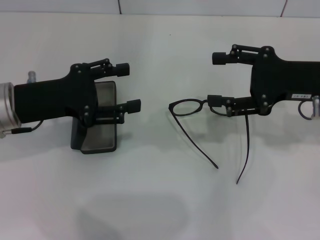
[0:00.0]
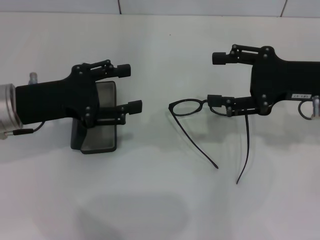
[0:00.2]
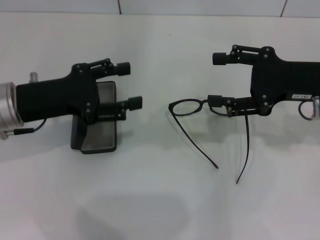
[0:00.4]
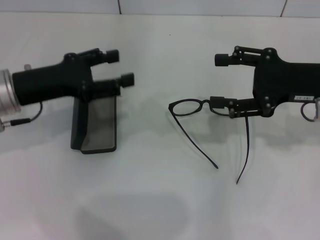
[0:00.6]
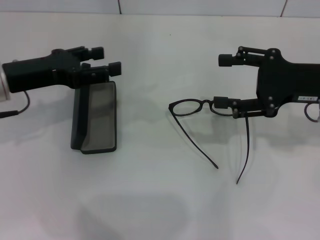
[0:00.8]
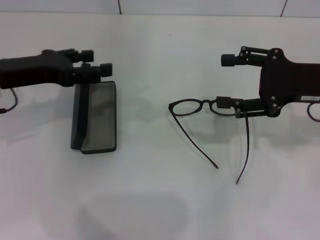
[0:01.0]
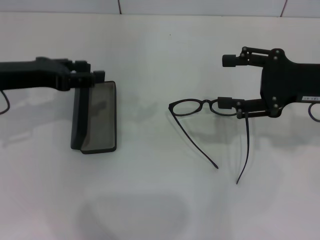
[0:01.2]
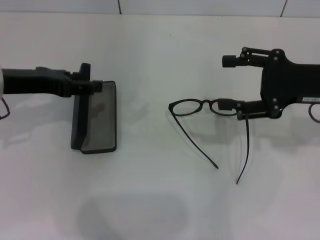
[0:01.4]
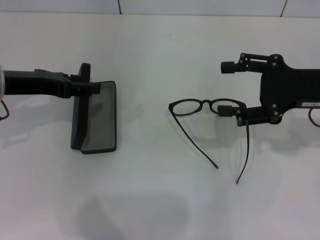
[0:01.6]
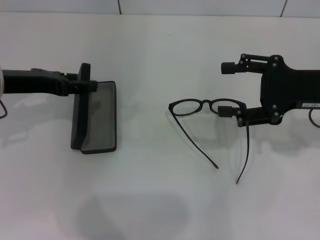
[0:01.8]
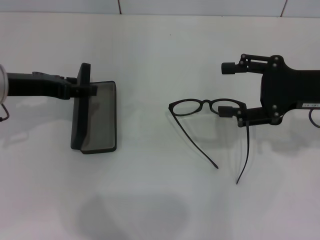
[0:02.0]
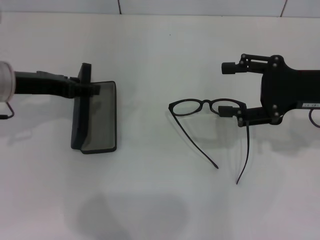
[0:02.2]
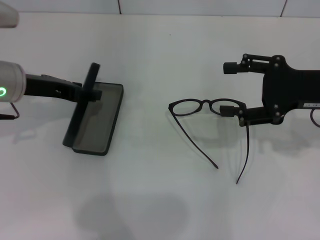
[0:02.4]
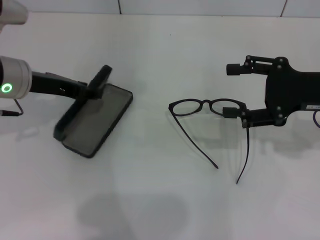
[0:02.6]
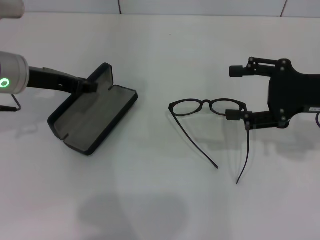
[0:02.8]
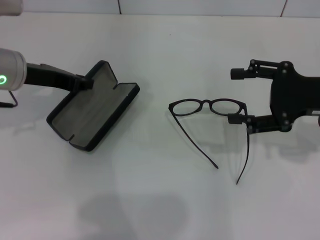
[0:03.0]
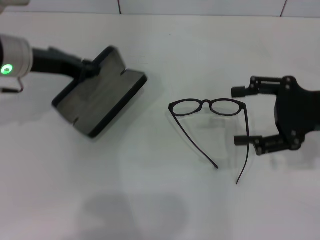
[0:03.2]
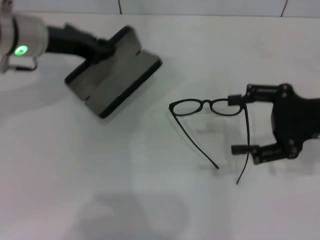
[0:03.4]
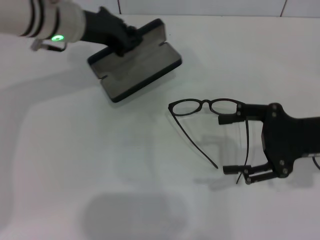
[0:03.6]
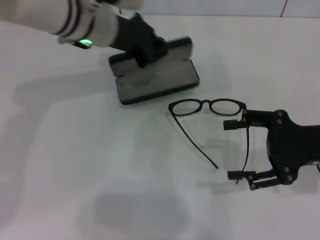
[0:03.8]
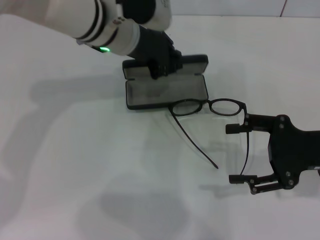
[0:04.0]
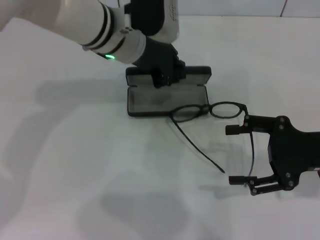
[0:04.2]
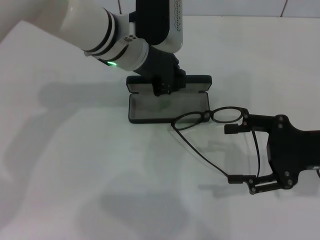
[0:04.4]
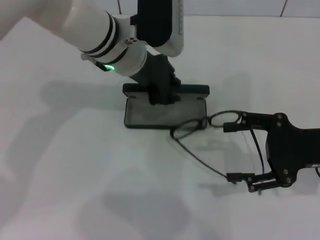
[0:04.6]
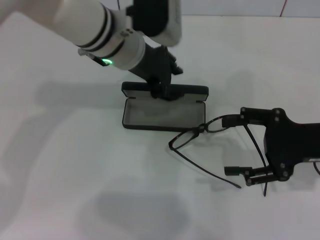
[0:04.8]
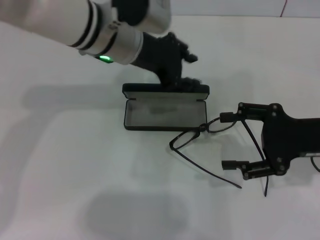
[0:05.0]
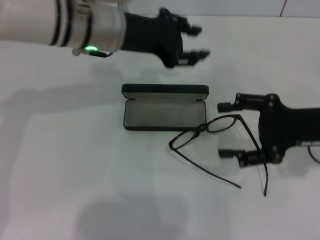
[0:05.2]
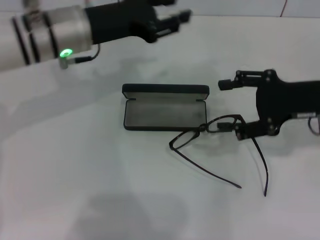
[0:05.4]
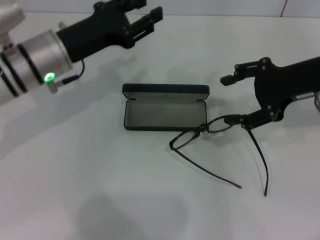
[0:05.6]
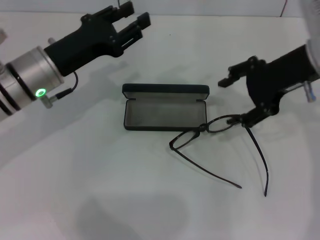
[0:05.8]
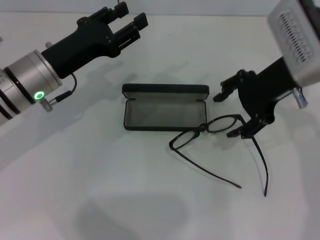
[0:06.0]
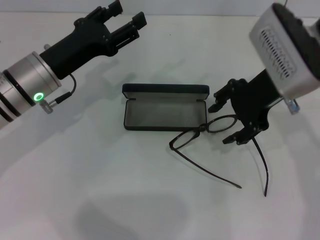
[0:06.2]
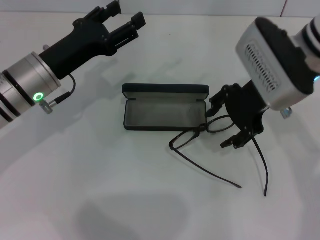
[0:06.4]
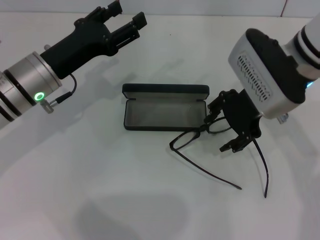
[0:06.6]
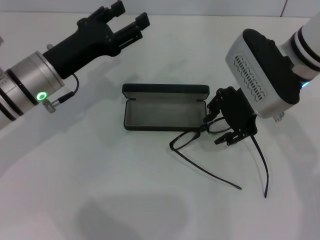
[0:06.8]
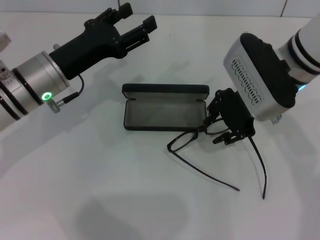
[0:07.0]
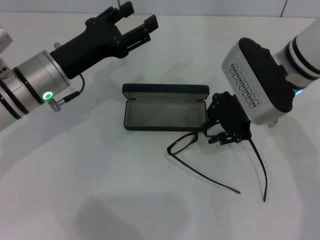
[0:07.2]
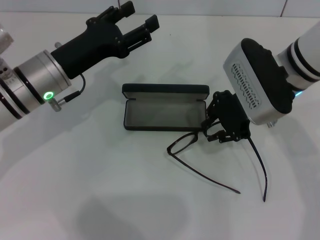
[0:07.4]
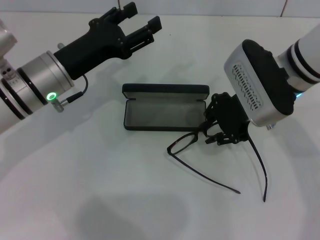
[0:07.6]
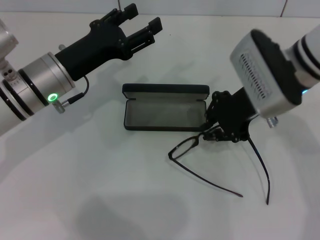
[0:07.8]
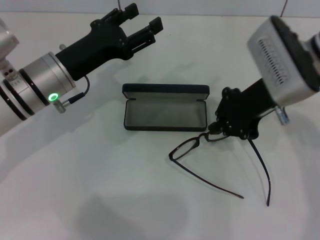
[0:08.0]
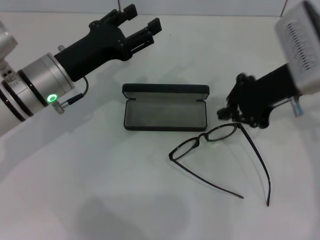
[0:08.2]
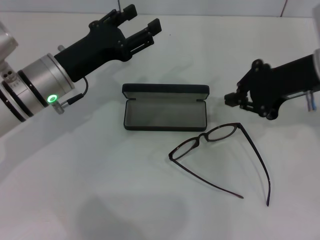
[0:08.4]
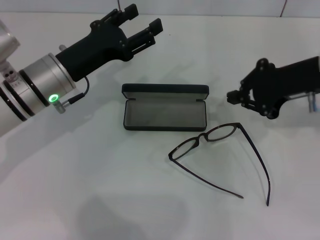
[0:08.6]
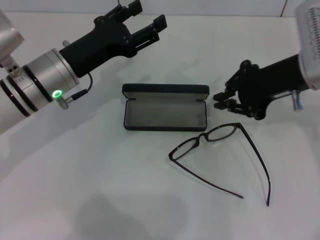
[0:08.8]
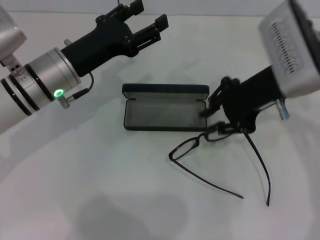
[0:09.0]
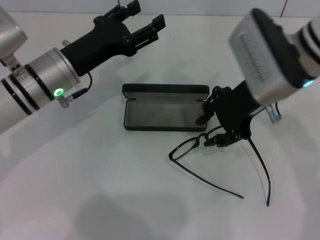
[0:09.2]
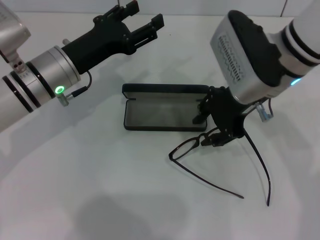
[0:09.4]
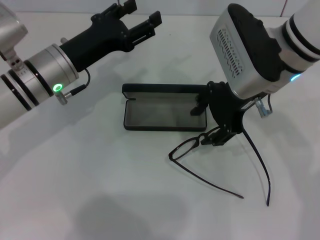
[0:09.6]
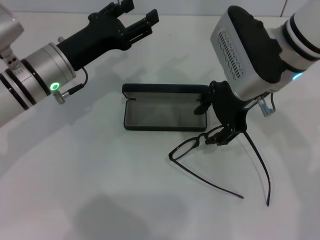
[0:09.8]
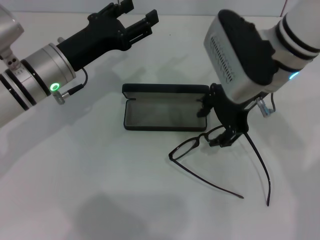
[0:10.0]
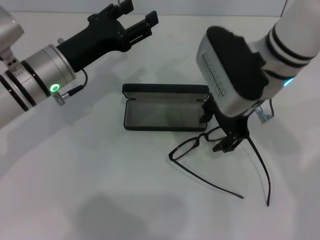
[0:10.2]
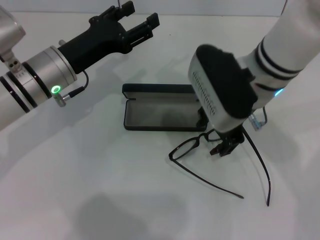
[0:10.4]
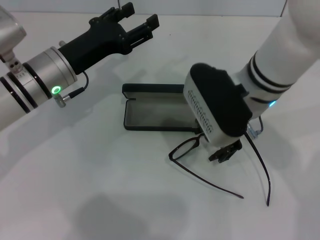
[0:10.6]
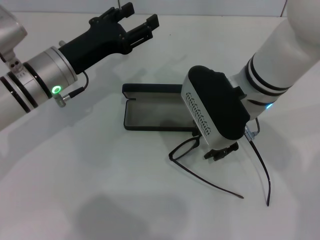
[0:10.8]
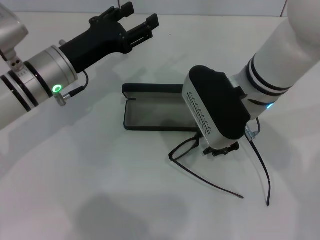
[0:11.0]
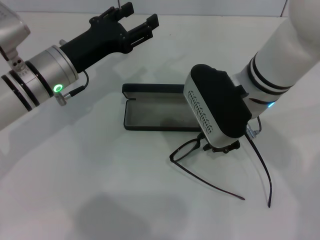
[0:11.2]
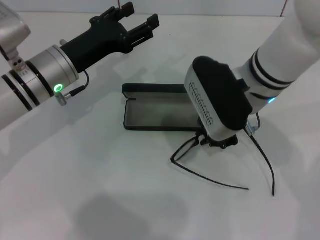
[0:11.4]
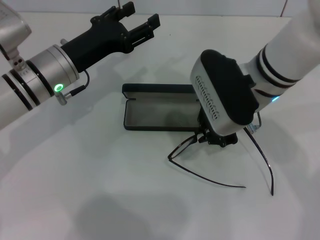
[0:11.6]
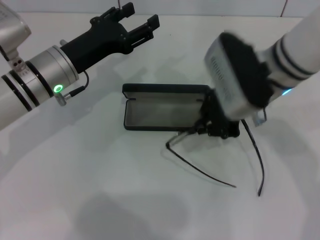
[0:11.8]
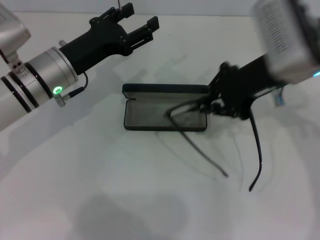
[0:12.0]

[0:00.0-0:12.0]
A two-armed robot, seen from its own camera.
Step, 0:00.0 to 0:02.4: Grab the glasses case with your left hand.
Step, 0:02.6 to 0:04.6: Place the glasses case in the center of the table with your left hand.
Step, 0:04.8 to 0:11.2: Grab the eyeglass frame with your right hand.
0:01.6 to 0:03.0: The left gripper closes up.
0:03.0 to 0:04.4: The right gripper ends up roughly 5 cm from where it was, while the left gripper moves to the right, some 15 cm.
0:04.4 to 0:06.0: The left gripper shifts about 15 cm to the left, backward and downward, and opens up. The right gripper shifts some 15 cm forward, to the left and upward.
0:06.0 to 0:07.6: The right gripper shifts by roughly 5 cm, and closes up.
0:07.6 to 0:09.0: The right gripper moves about 10 cm to the right and comes back.
0:09.0 to 0:10.4: The right gripper goes approximately 5 cm to the left, and opens its fingers.
0:10.4 to 0:12.0: The right gripper heads to the right, covering about 5 cm, and closes its fingers.

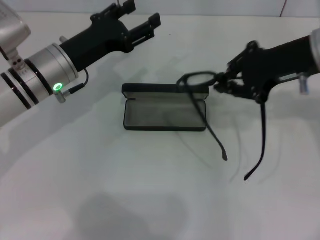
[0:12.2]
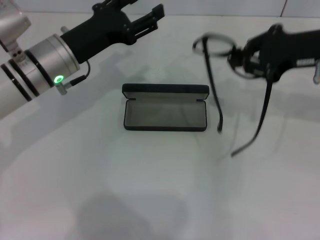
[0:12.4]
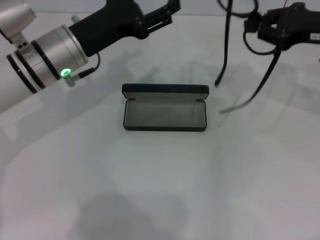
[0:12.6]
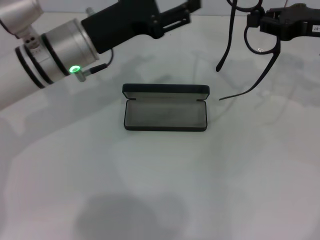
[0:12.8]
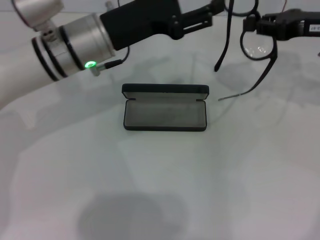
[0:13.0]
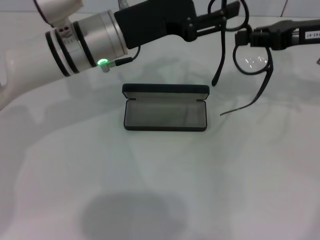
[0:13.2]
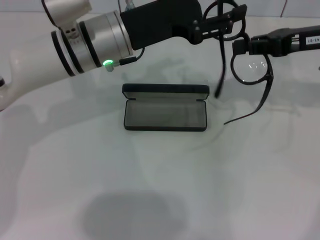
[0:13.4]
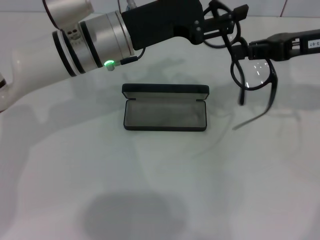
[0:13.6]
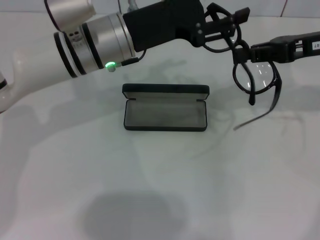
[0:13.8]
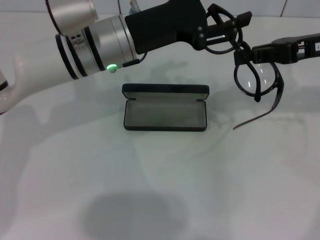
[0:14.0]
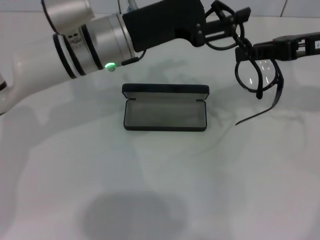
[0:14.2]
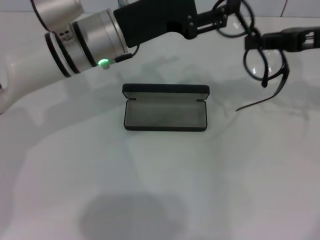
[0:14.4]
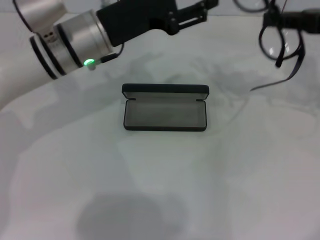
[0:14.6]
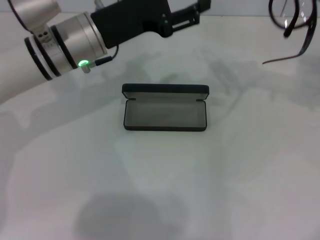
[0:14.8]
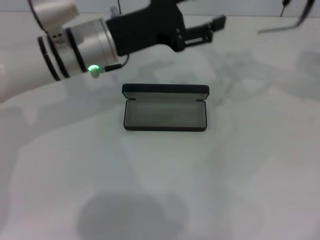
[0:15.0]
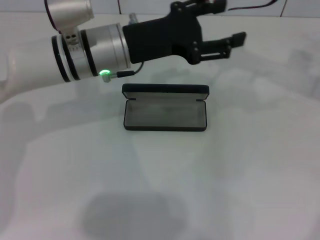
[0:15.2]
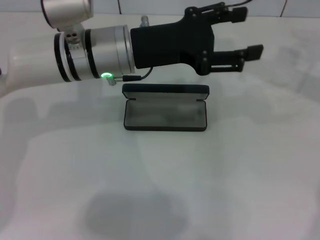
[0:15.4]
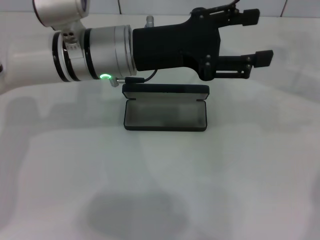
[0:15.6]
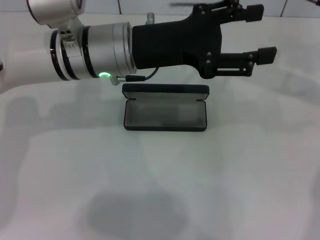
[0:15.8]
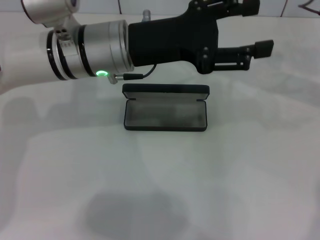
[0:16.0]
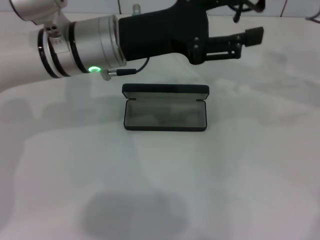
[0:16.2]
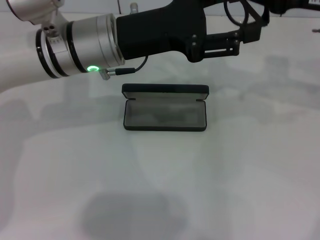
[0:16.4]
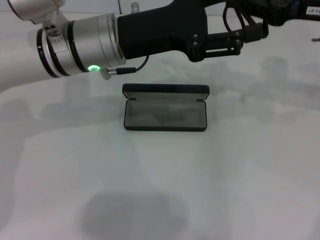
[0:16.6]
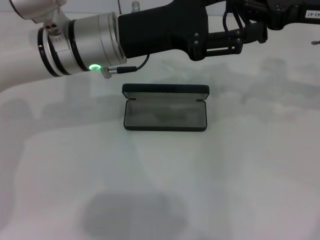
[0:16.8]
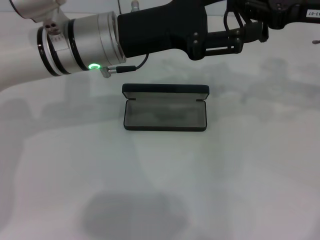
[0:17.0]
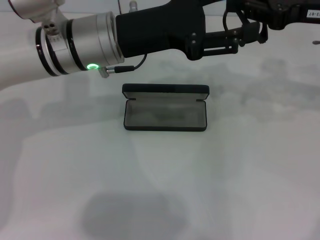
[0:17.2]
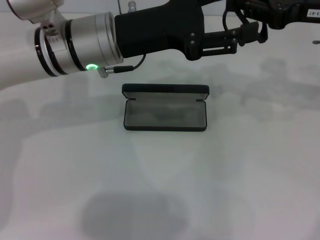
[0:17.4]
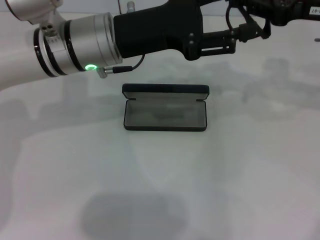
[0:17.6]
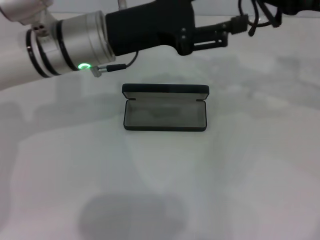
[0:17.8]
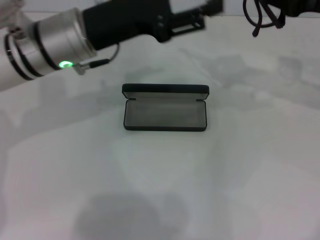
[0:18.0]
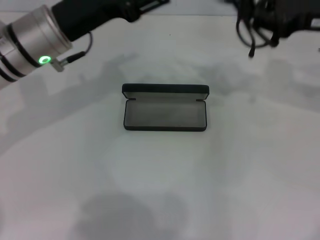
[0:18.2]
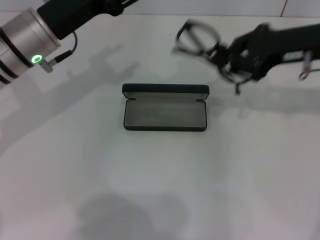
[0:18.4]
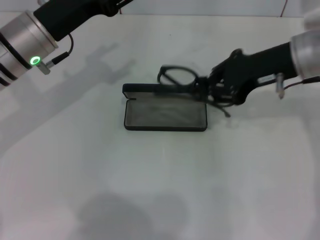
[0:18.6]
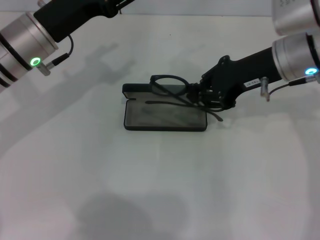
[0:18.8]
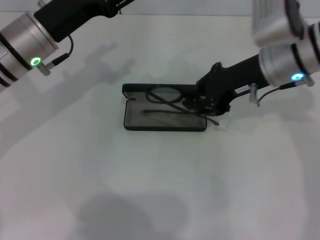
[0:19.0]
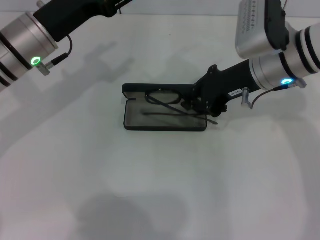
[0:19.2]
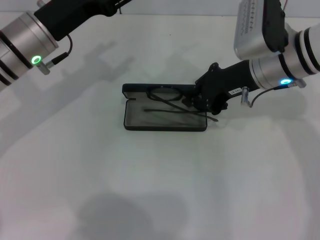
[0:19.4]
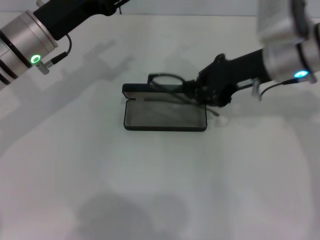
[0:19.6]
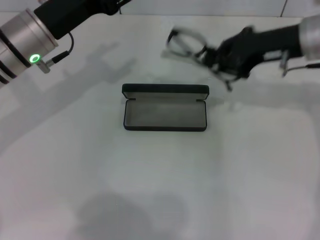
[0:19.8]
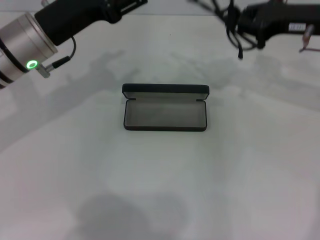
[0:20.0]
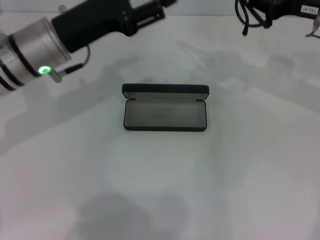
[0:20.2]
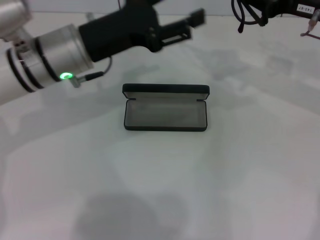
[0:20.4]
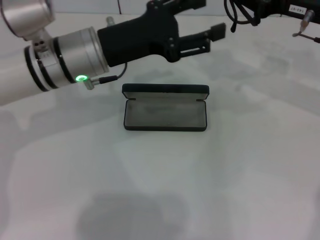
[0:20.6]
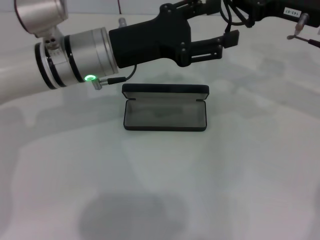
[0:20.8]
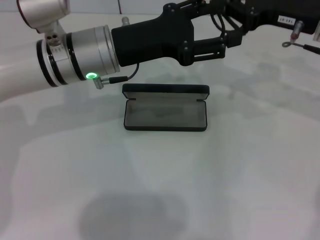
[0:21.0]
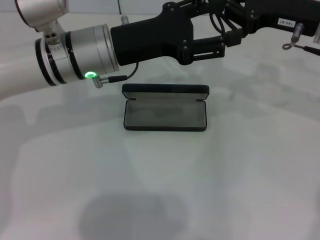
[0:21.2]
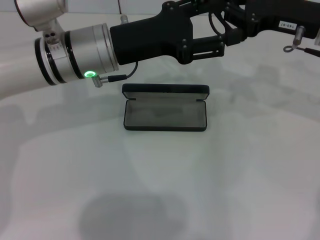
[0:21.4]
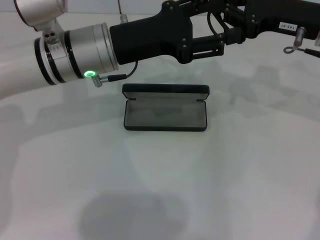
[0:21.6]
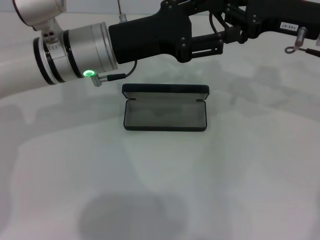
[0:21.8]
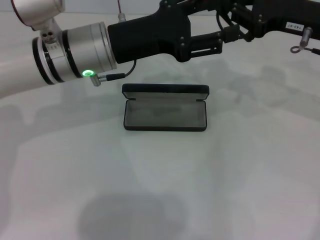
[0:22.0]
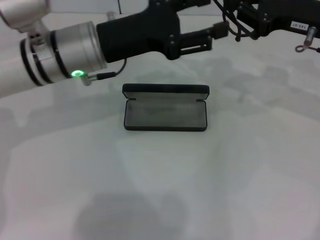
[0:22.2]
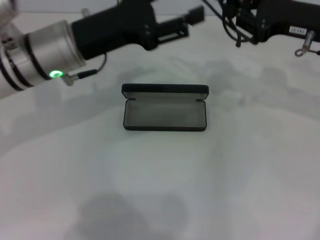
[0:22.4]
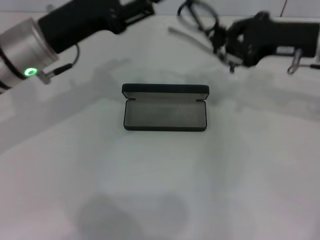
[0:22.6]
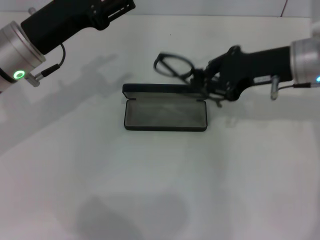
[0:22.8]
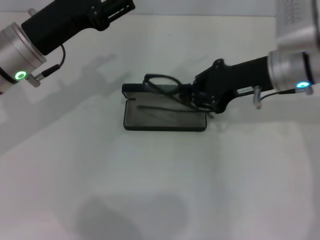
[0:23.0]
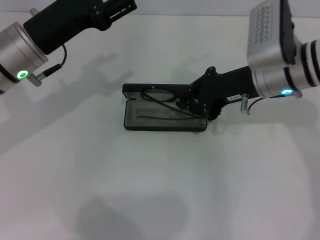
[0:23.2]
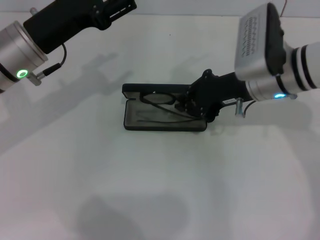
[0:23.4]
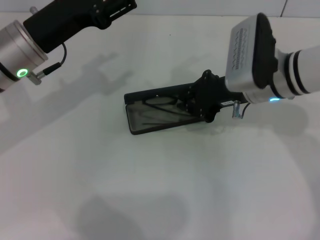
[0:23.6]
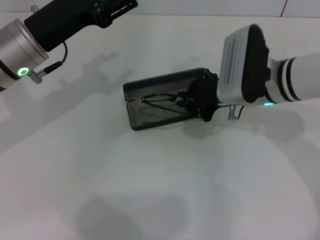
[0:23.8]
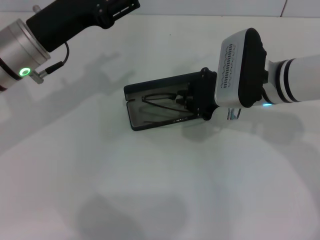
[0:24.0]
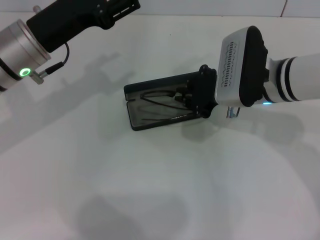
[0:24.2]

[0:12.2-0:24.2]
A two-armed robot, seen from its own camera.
Step, 0:12.2 to 0:21.4: Fold the frame with your left hand.
0:12.2 to 0:13.8: The left gripper goes about 10 cm to the right. Meanwhile the right gripper travels to the right by roughly 5 cm.
0:13.8 to 0:15.2: The right gripper moves roughly 5 cm.
0:15.2 to 0:16.6: The grippers make only small movements.
0:16.6 to 0:18.2: The left gripper goes roughly 5 cm to the left.
0:18.2 to 0:19.8: The right gripper is displaced to the left by some 5 cm.
0:19.8 to 0:21.2: The left gripper heads to the right, covering some 10 cm.
0:21.2 to 0:22.6: The left gripper moves to the left, some 5 cm.
0:22.6 to 0:24.2: The right gripper travels to the left by approximately 10 cm.
